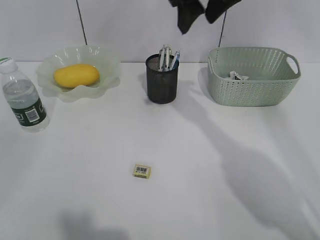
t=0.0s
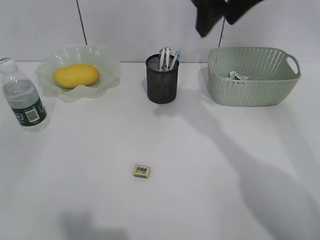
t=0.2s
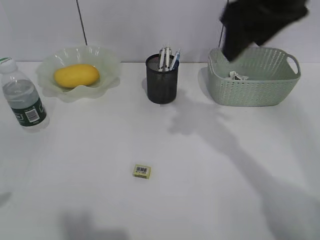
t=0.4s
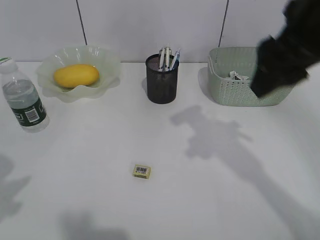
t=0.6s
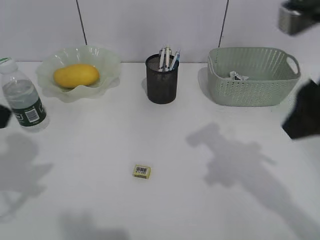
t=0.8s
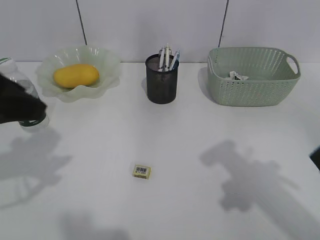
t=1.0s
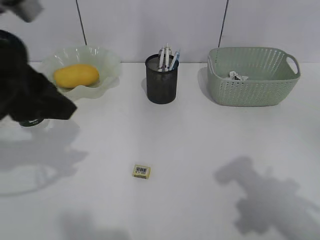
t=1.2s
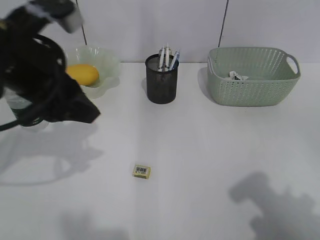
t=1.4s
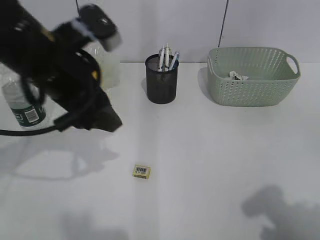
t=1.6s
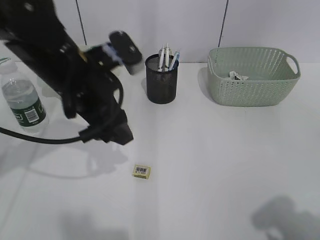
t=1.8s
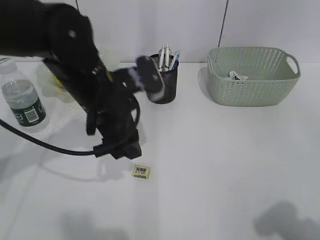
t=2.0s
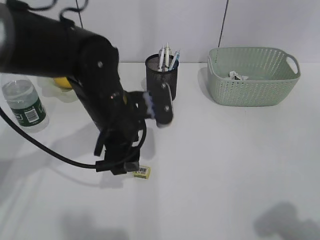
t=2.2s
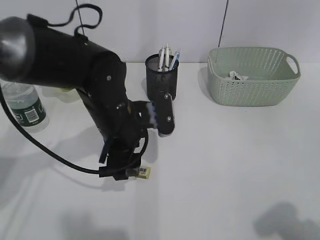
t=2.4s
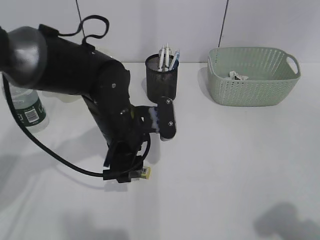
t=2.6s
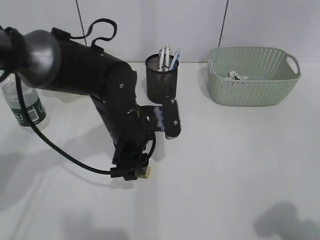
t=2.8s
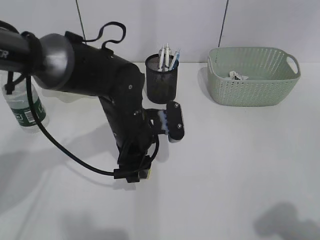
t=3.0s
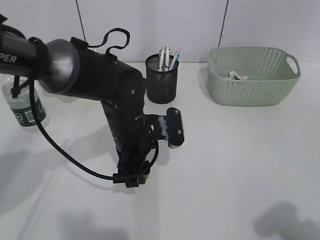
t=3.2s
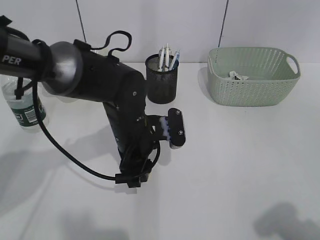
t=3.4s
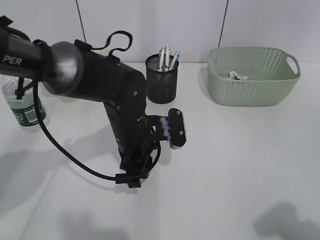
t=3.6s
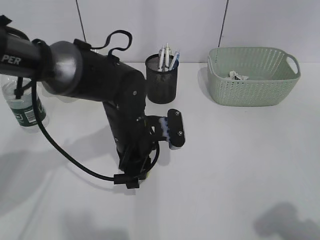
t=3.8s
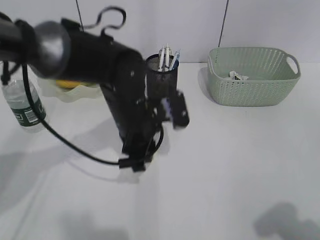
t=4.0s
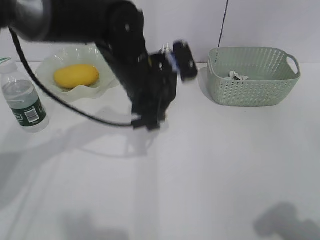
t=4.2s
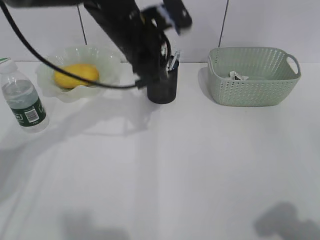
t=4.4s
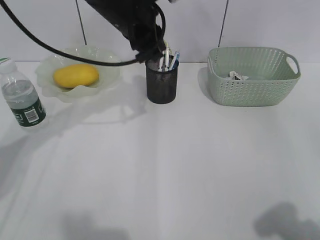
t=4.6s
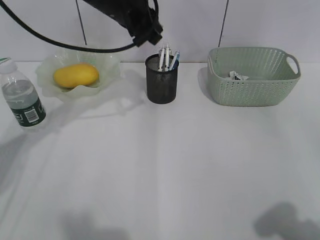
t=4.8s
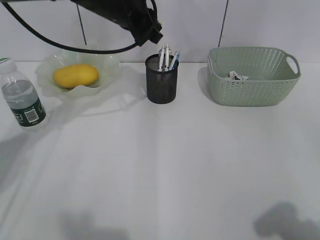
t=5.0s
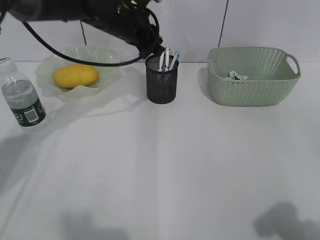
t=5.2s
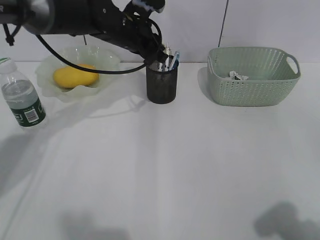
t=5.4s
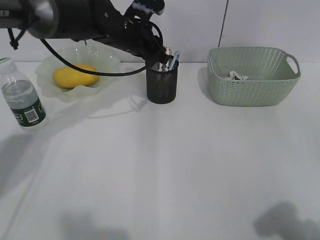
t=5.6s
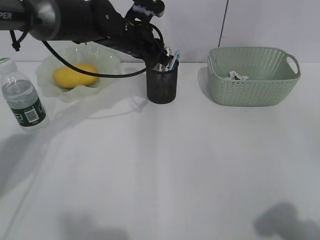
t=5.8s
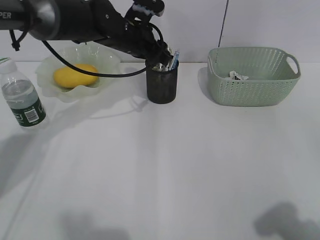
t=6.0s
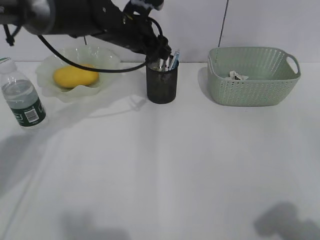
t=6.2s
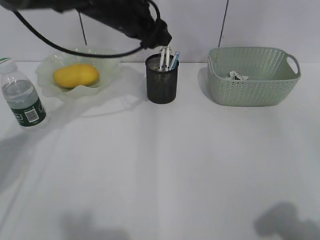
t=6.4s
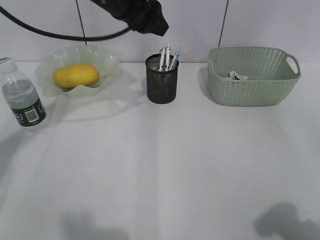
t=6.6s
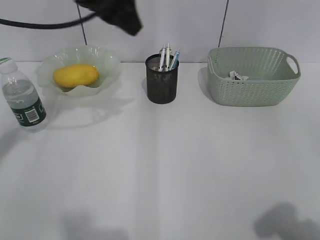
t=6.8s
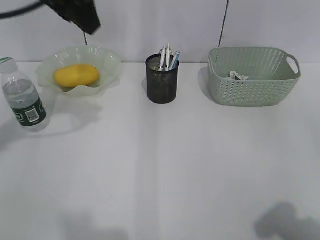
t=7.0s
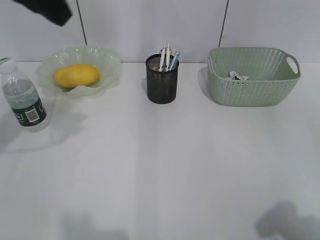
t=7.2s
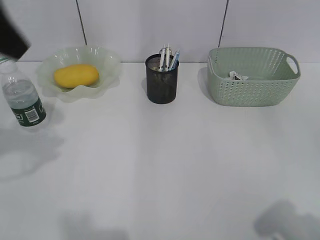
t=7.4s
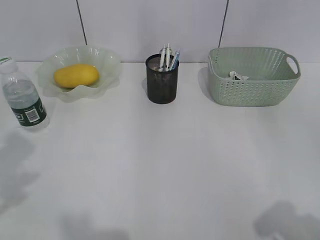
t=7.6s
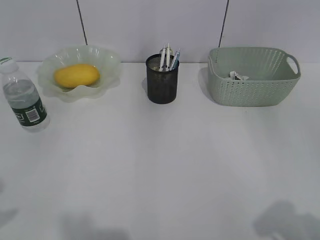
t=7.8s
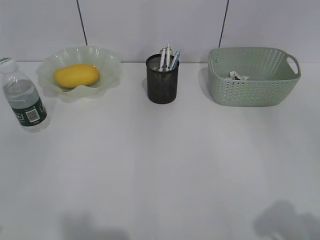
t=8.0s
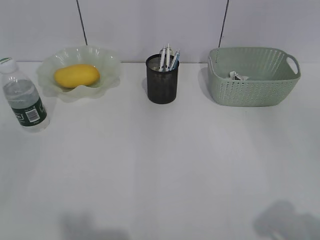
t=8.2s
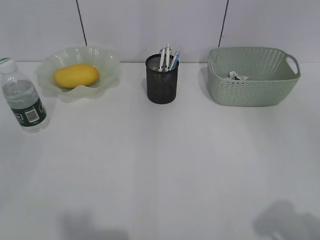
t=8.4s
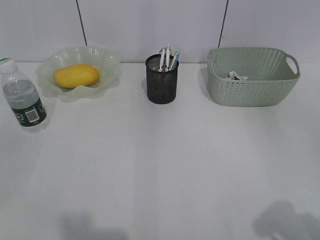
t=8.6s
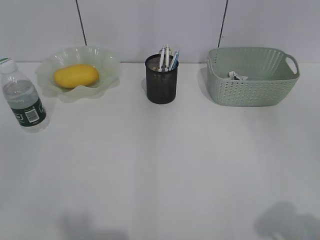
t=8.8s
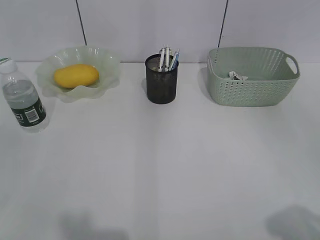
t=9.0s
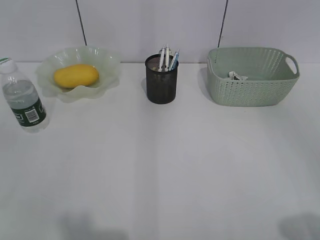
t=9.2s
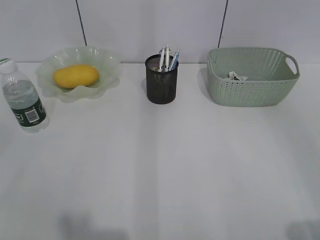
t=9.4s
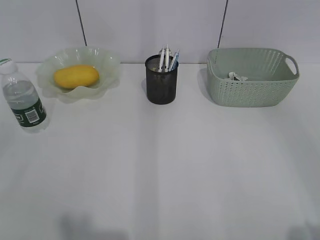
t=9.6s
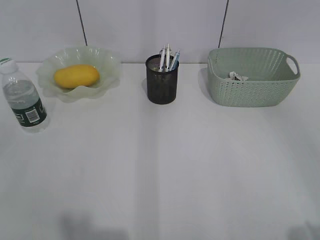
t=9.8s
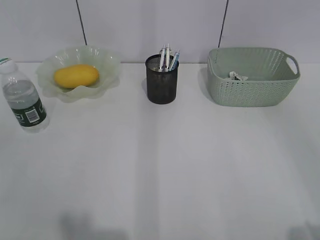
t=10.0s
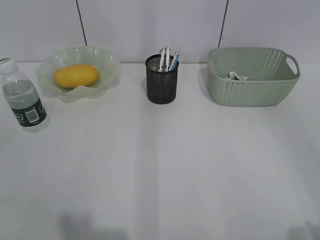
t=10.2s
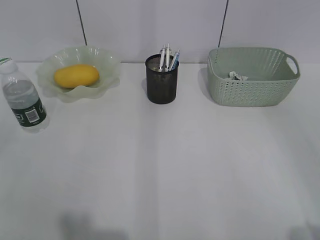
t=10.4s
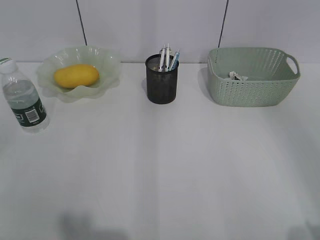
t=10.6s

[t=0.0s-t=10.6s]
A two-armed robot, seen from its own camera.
Step, t=0.0s to t=3.6s: Grasp the eraser with left gripper.
Step, t=3.8s to t=6.0s: Place the eraser in pen holder with left gripper.
t=0.0s to t=1.6s: The right gripper moves backward and to the right, approximately 35 cm, while the left gripper shifts some 30 cm forward and to the right.
t=1.6s to t=3.0s: The left gripper heads downward and to the right, covering some 15 cm.
t=3.0s to t=4.6s: The left gripper goes approximately 20 cm upward and forward, and closes its fingers.
t=4.6s to t=6.0s: The left gripper is displaced downward and forward by approximately 10 cm, and opens up.
t=6.0s to t=7.6s: The left gripper heads backward, to the left and upward, covering about 40 cm.
